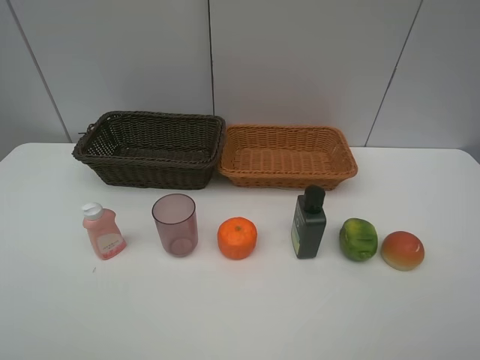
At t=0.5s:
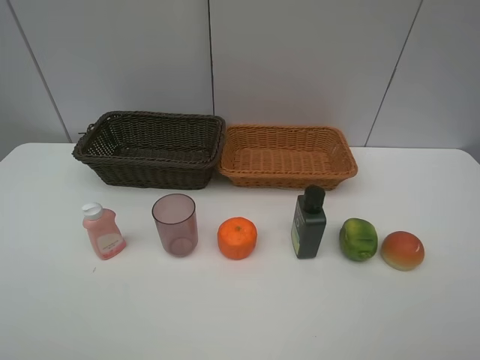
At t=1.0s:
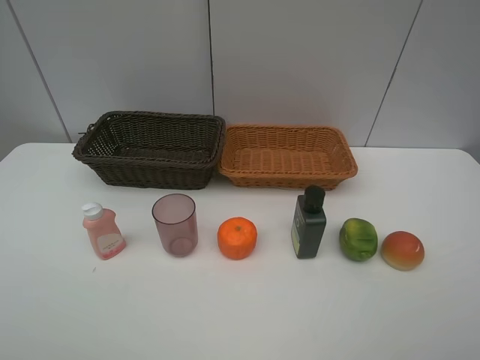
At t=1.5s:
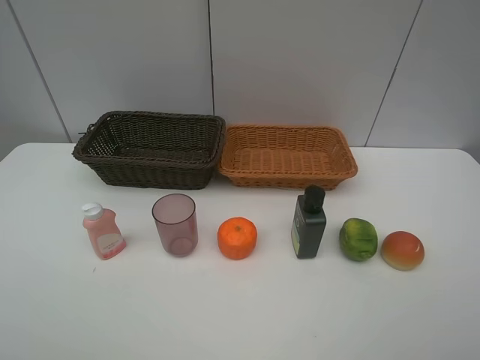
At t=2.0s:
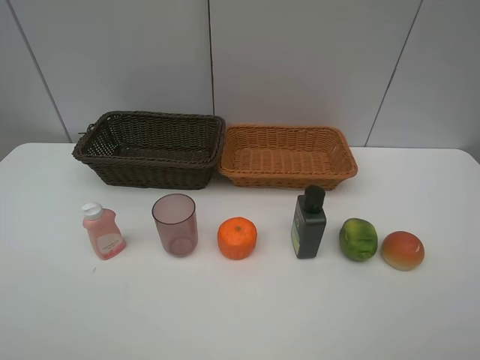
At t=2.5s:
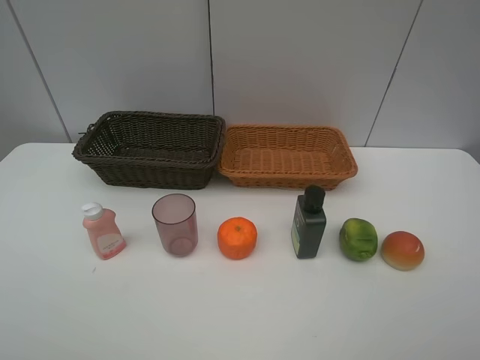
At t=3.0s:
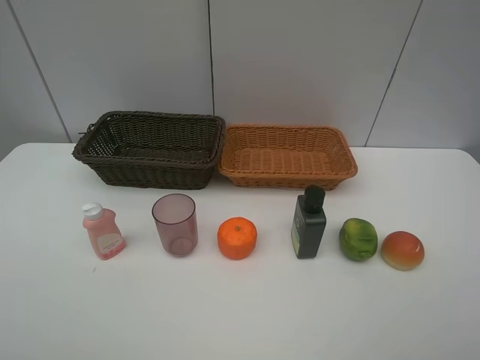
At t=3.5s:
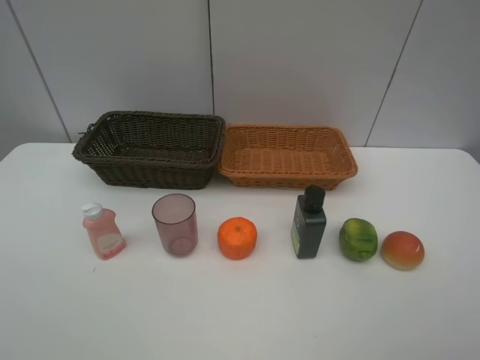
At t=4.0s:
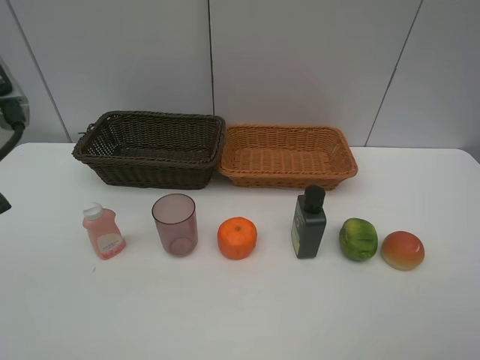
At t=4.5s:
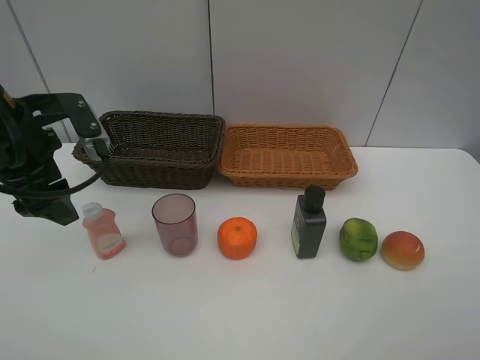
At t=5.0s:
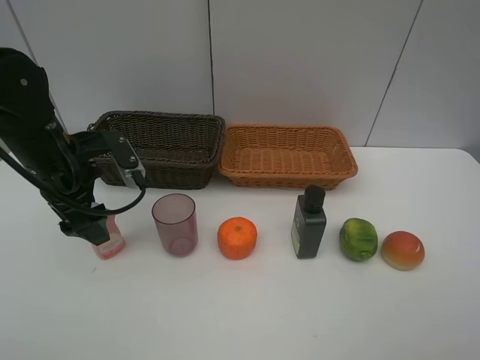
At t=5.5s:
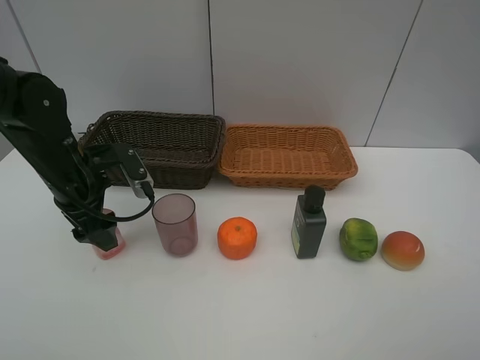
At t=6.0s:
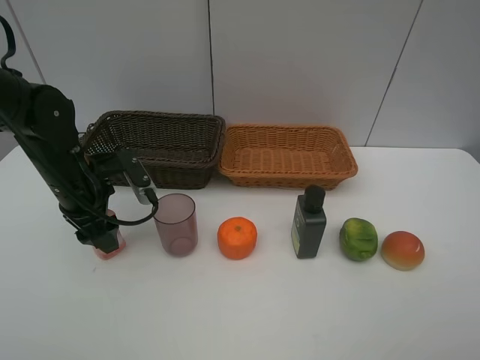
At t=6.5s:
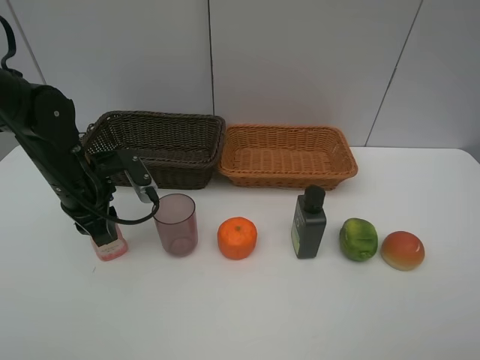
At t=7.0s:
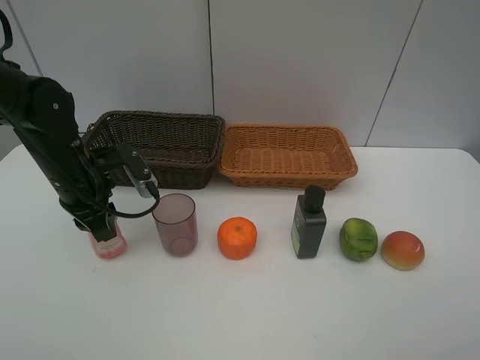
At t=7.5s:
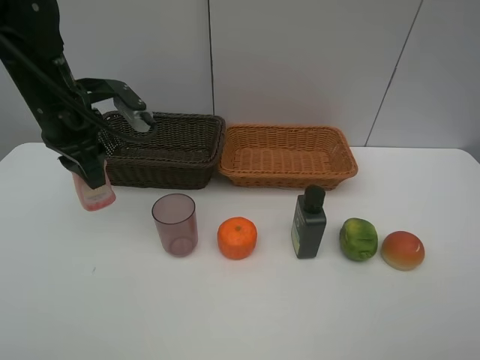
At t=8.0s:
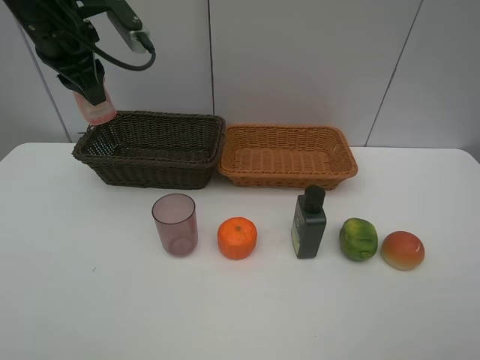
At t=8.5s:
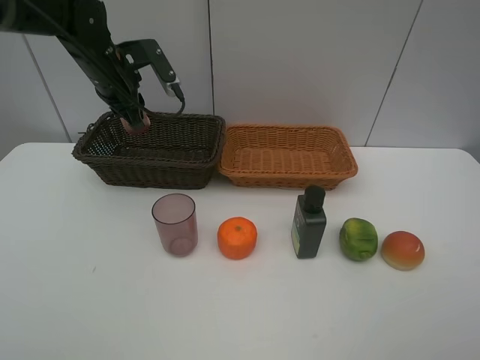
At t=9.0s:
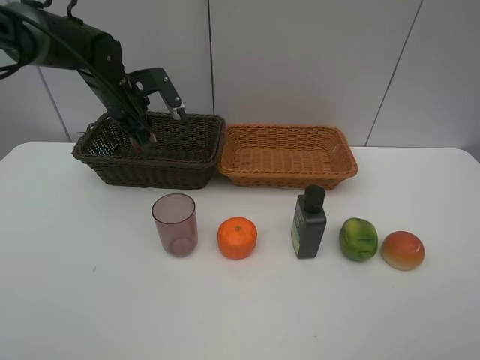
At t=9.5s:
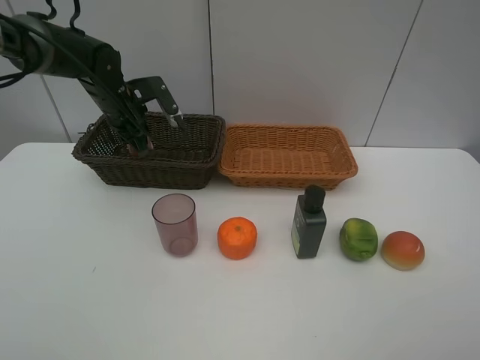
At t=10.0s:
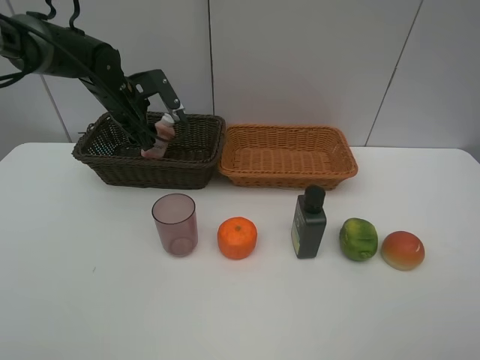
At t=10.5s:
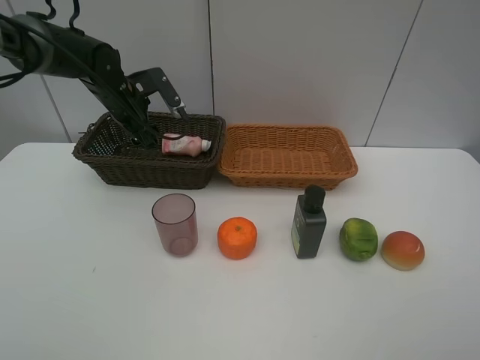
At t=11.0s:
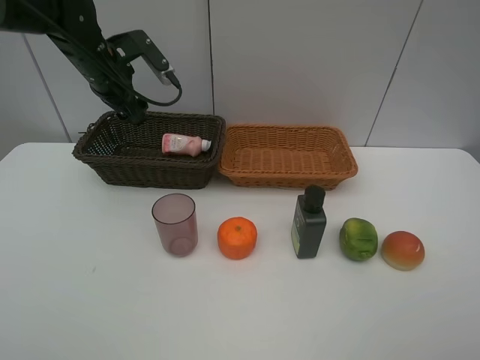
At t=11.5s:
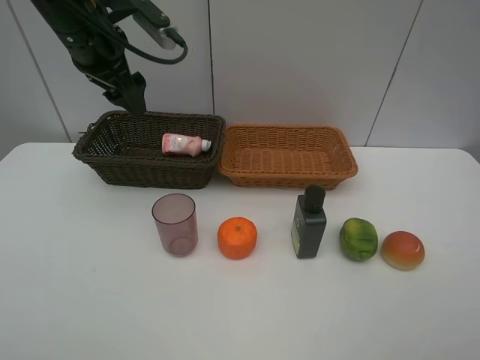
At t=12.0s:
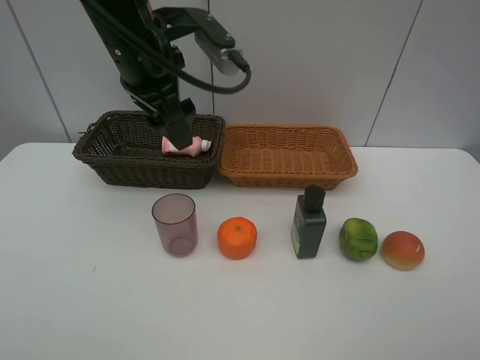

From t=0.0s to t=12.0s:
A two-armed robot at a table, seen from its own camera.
Task of the whole recording: place multiple objects separately in different baskets.
From t=0.0s to t=2.0s: Both grippers stay put.
From t=2.0s to t=4.0s: The left gripper moves forward, approximately 20 cm.
From t=4.0s to t=6.0s: The left gripper goes approximately 20 cm downward and forward.
From t=6.0s to t=8.0s: The left gripper shifts roughly 20 cm upward and forward.
From t=8.0s to t=10.0s: The left gripper shifts some 15 cm downward and forward, and opens.
From t=10.0s to t=12.0s: The left gripper goes approximately 20 cm backward, upward and to the right.

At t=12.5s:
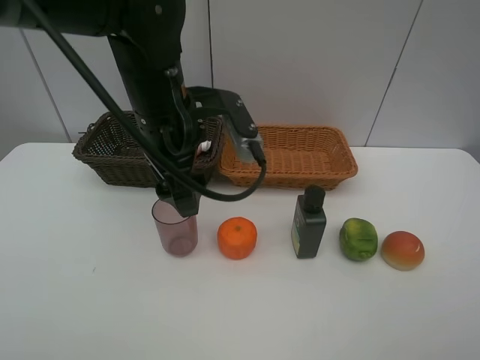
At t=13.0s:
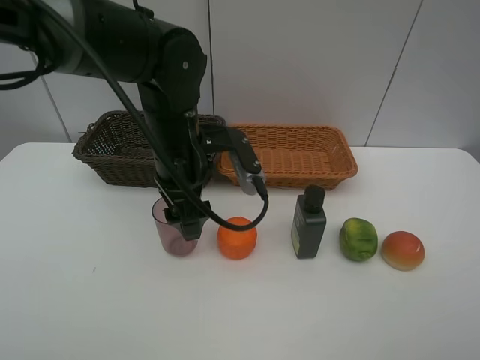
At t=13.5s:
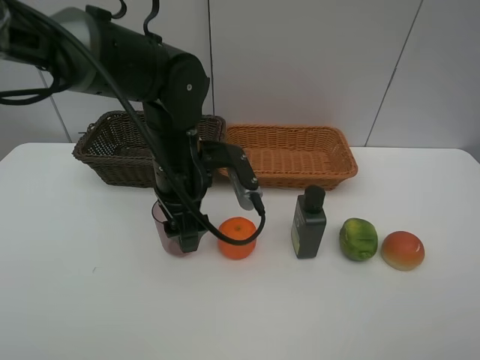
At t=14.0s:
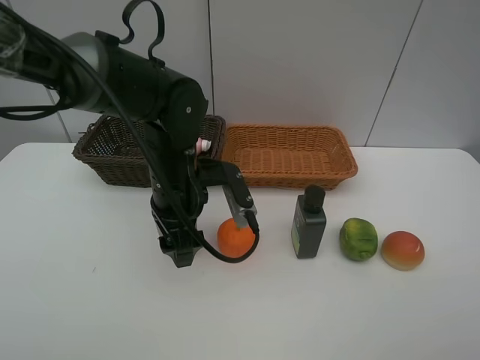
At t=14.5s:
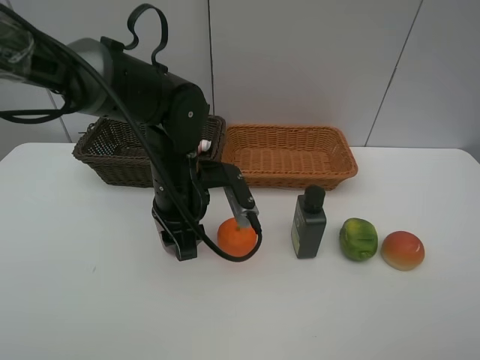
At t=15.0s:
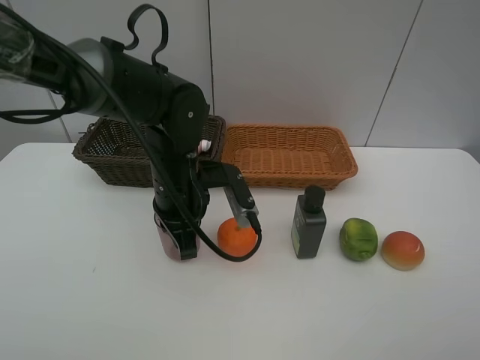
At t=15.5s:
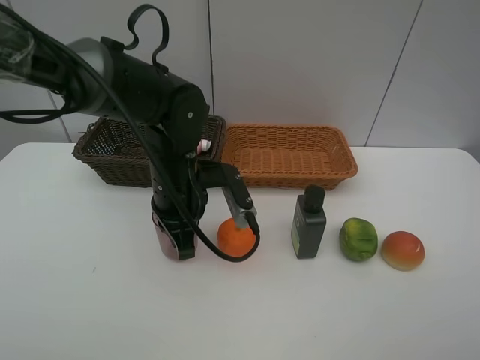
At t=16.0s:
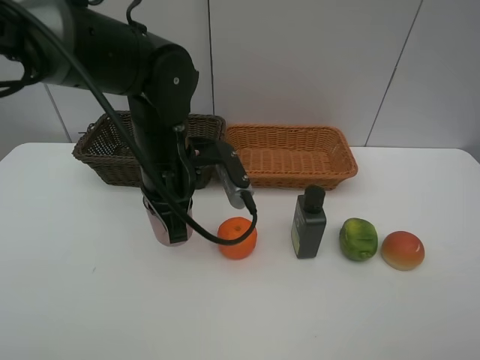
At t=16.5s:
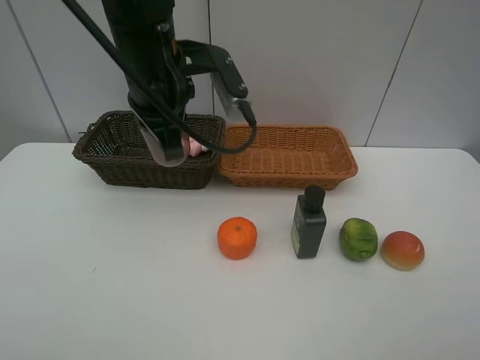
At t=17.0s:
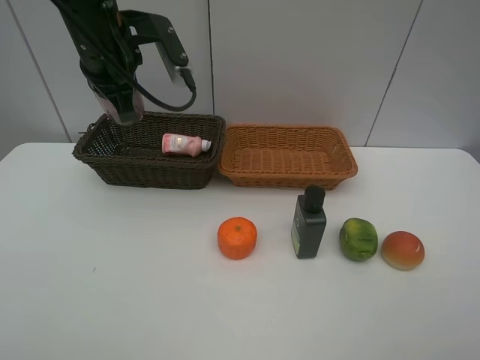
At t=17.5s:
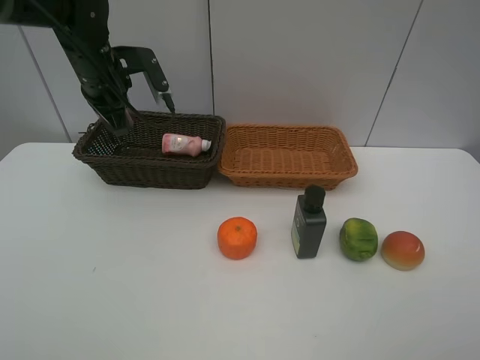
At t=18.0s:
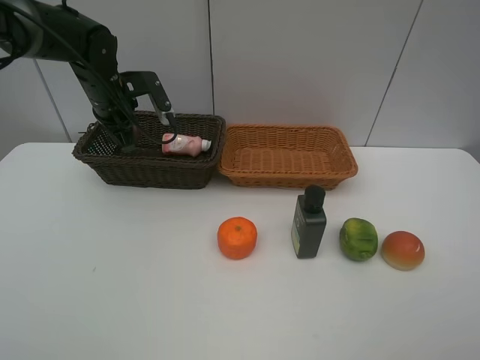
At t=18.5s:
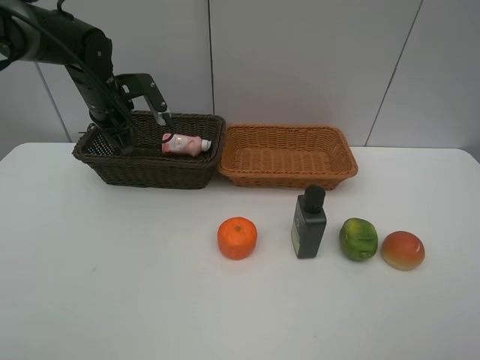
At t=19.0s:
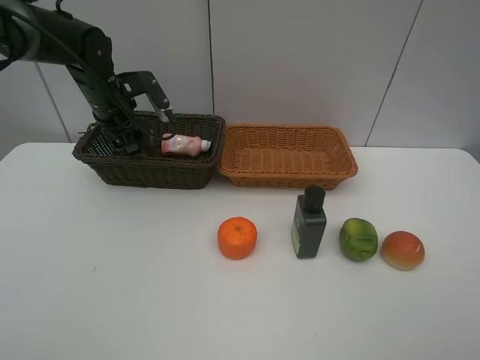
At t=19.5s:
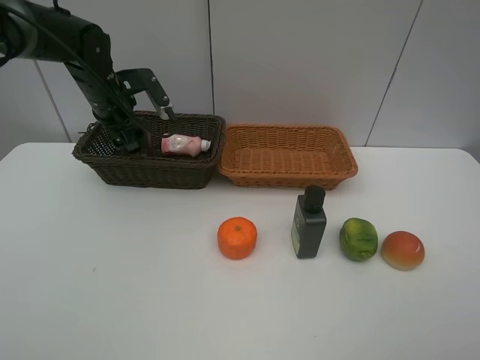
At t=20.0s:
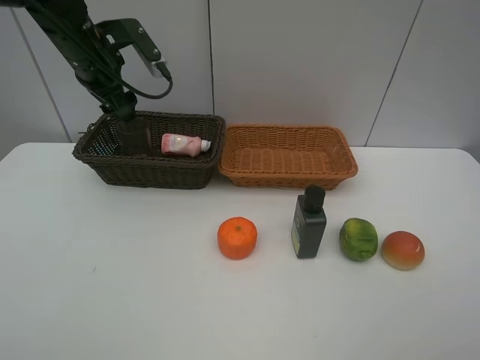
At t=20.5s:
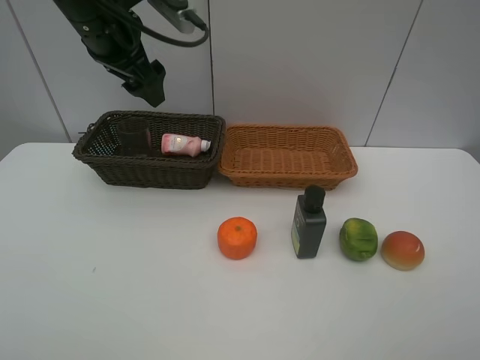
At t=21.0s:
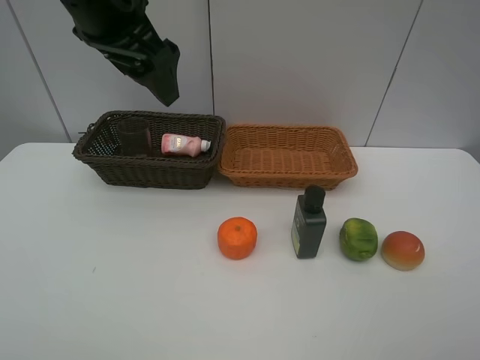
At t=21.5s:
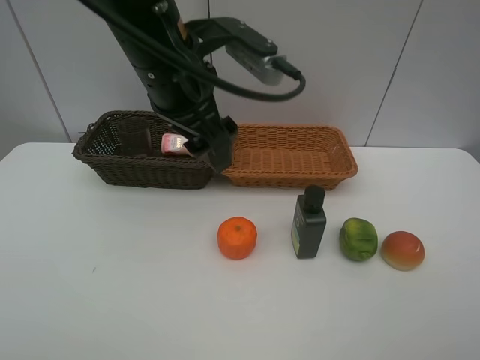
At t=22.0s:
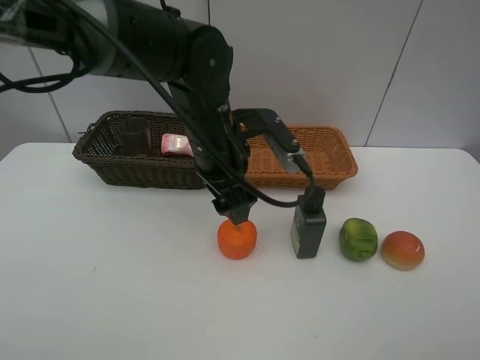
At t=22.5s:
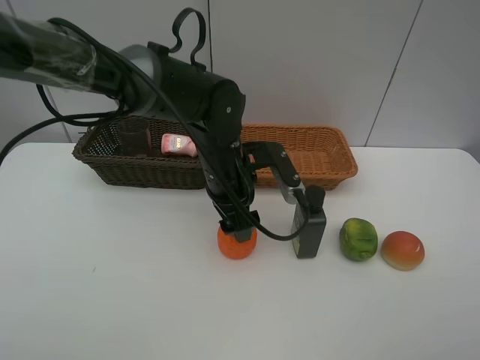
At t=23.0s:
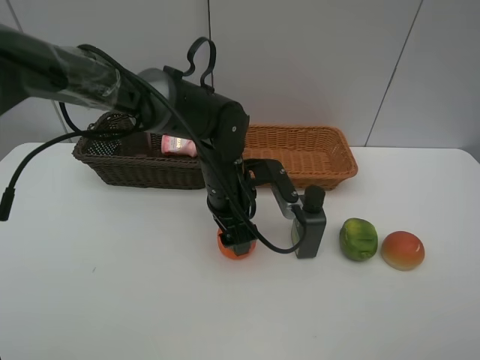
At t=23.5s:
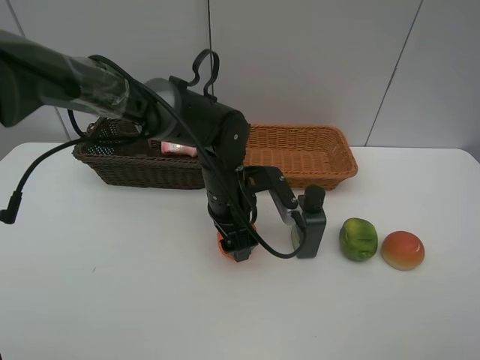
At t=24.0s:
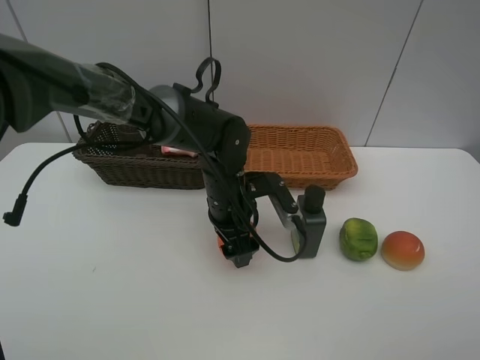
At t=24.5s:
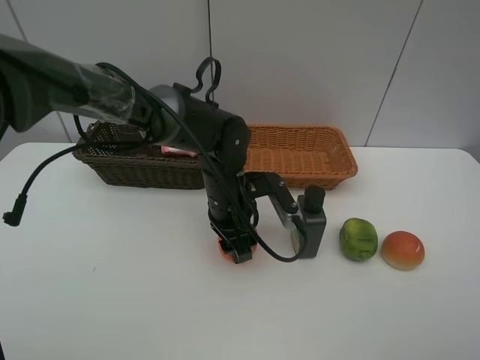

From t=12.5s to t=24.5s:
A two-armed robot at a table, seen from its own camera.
Task of the whole recording: place multiple objects separately in different baskets.
From t=12.5s to t=14.5s: The left gripper heads downward, covering roughly 10 cm.
From t=14.5s to t=16.5s: The left gripper goes approximately 15 cm upward, and closes its fingers.
From t=16.5s to t=18.5s: The left gripper is displaced forward, to the left and downward by roughly 20 cm.
From t=18.5s to t=20.5s: The left gripper is displaced upward, backward and to the right by about 20 cm, and opens its fingers.
From t=20.5s to t=22.5s: The left gripper moves downward and to the right, roughly 20 cm.
From t=22.5s to t=24.5s: The grippers make only small movements.

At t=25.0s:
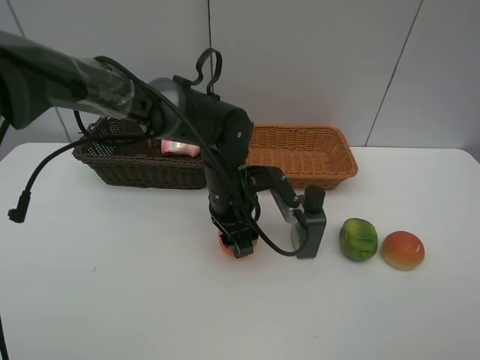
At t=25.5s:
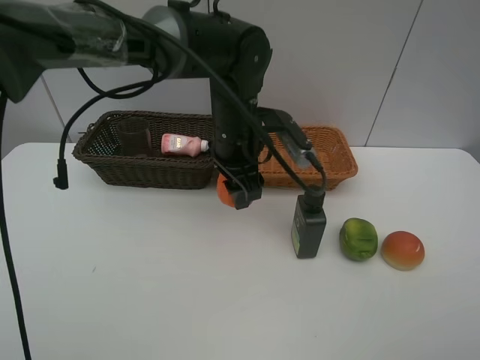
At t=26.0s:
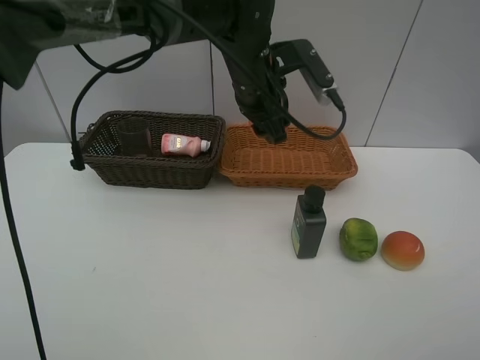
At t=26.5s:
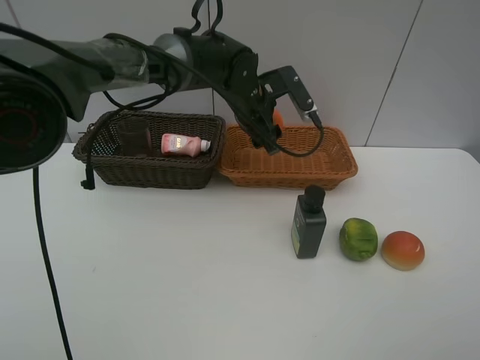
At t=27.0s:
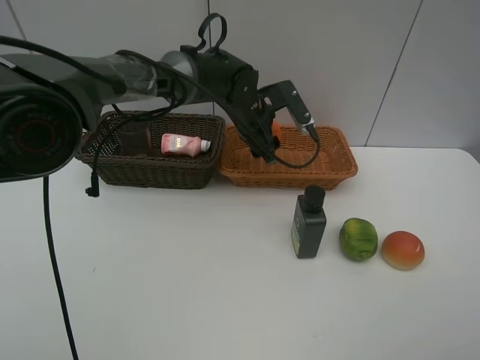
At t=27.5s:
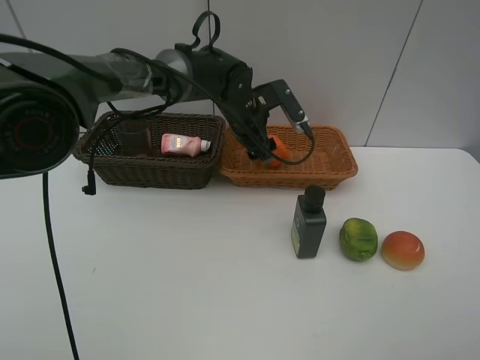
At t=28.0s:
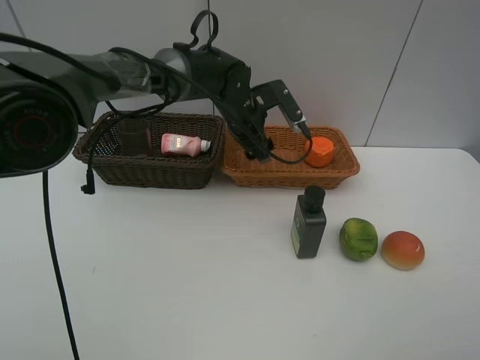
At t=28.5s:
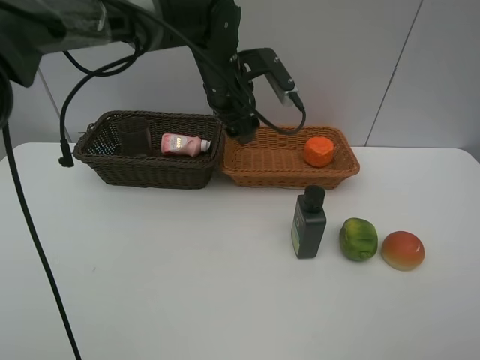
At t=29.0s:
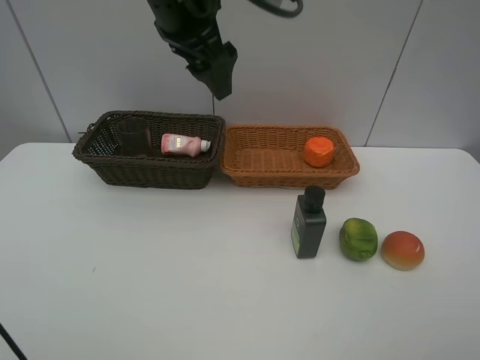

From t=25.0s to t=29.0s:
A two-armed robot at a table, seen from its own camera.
Task of the whole recording: place multiple objects separately in different baskets.
From t=25.0s to t=27.0s: The left gripper goes about 10 cm forward.
From t=27.0s to t=29.0s: The left gripper heads upward, backward and to the left, covering approximately 25 cm.
